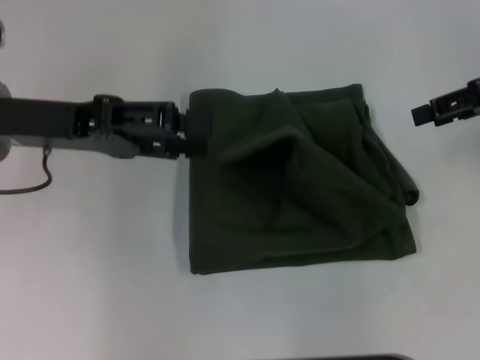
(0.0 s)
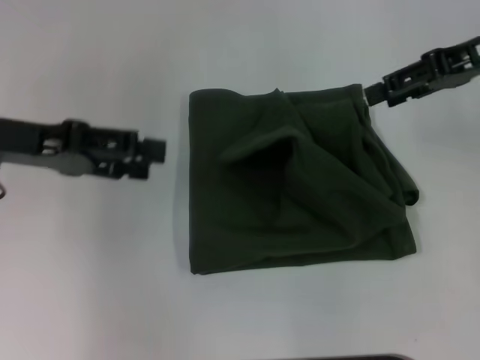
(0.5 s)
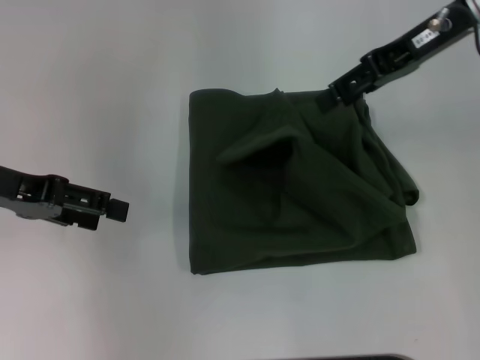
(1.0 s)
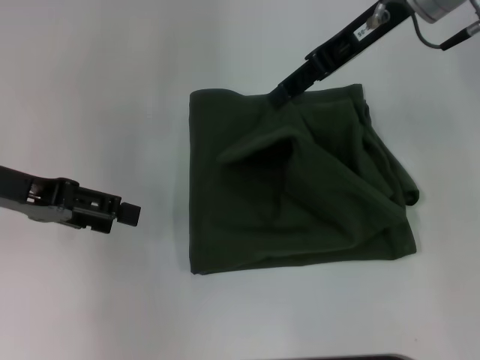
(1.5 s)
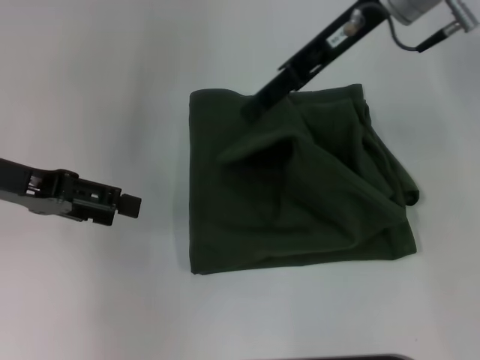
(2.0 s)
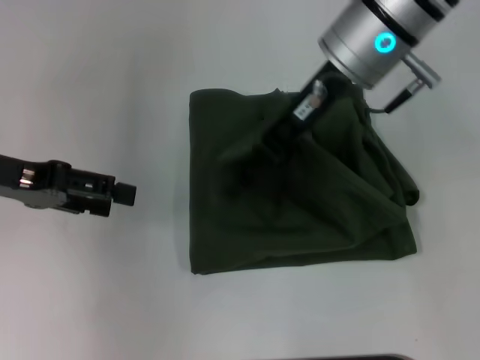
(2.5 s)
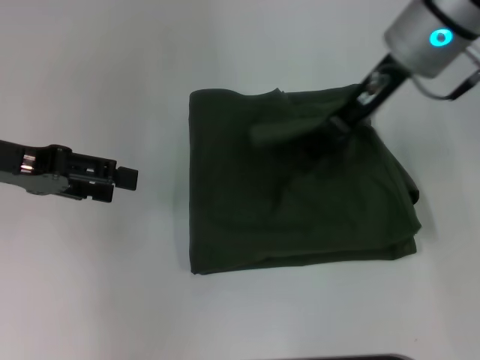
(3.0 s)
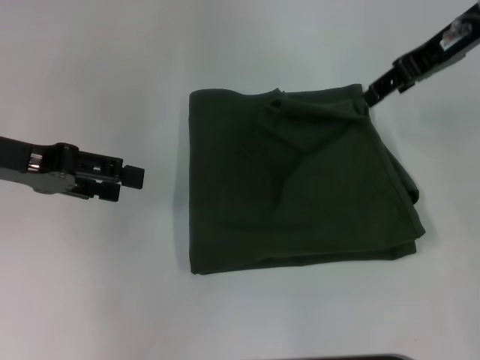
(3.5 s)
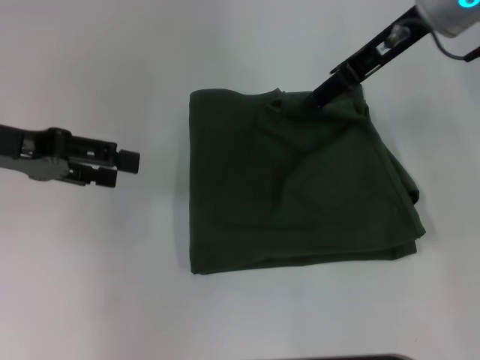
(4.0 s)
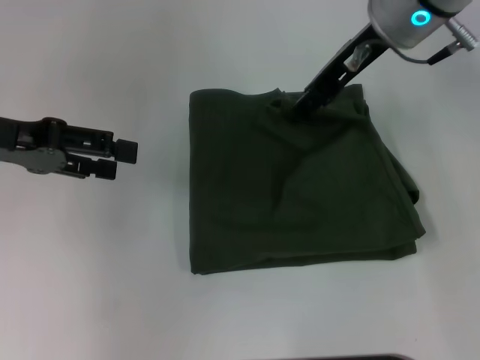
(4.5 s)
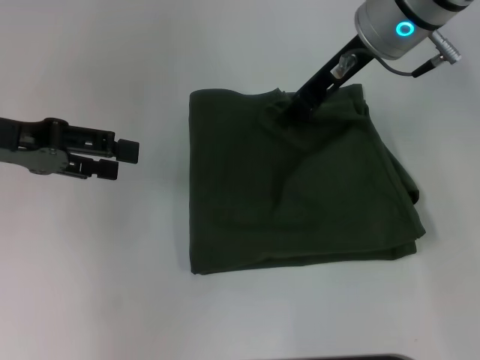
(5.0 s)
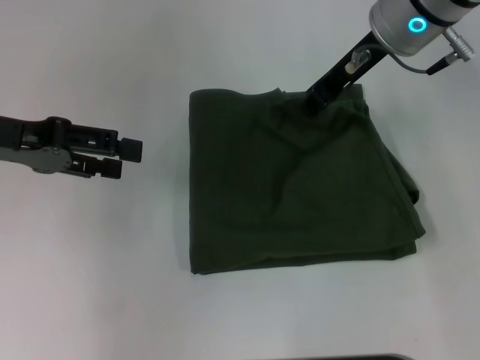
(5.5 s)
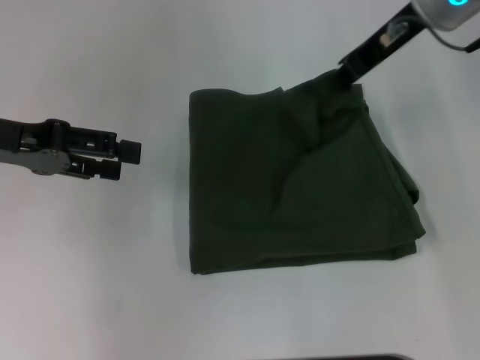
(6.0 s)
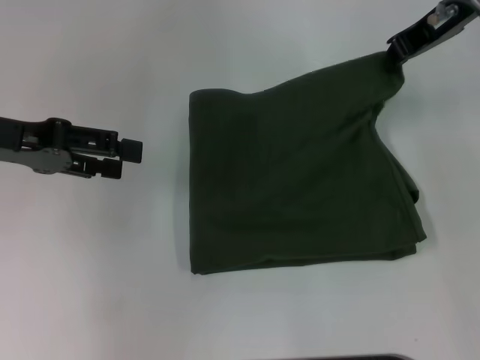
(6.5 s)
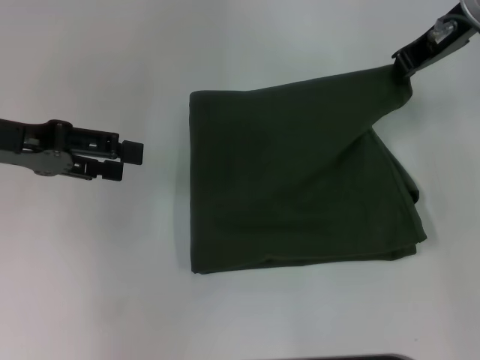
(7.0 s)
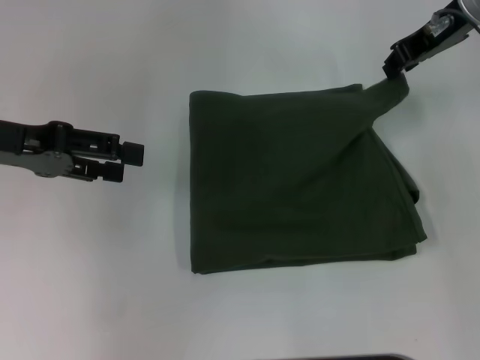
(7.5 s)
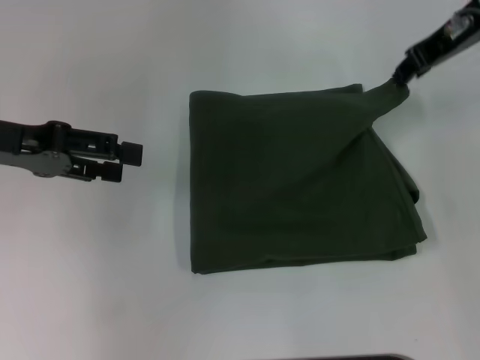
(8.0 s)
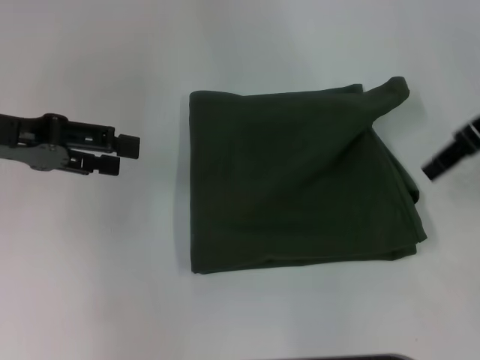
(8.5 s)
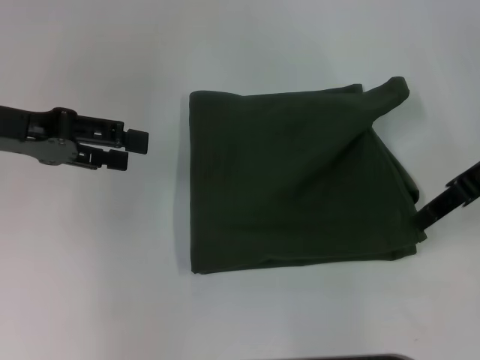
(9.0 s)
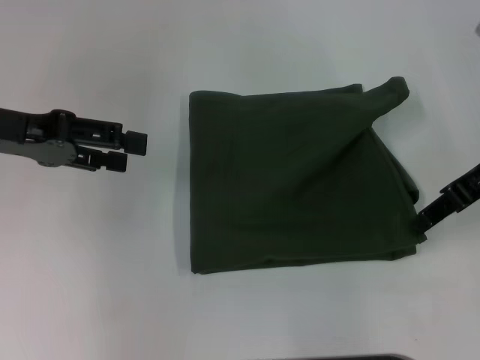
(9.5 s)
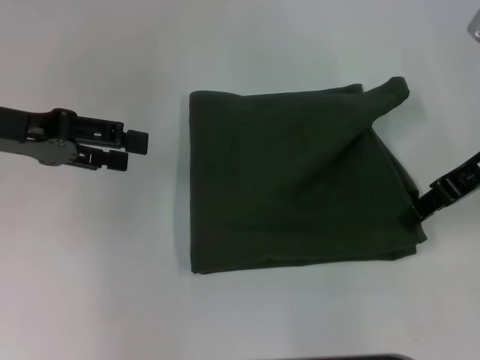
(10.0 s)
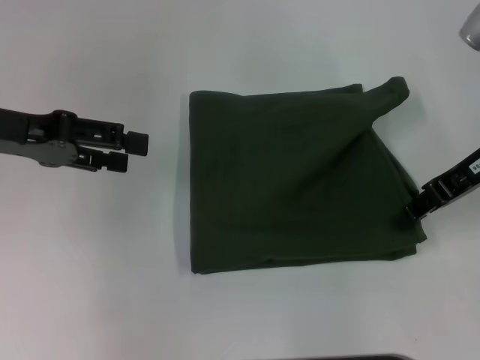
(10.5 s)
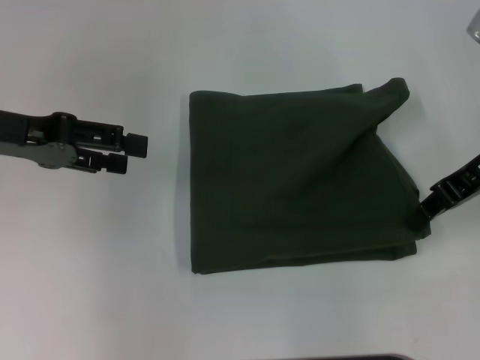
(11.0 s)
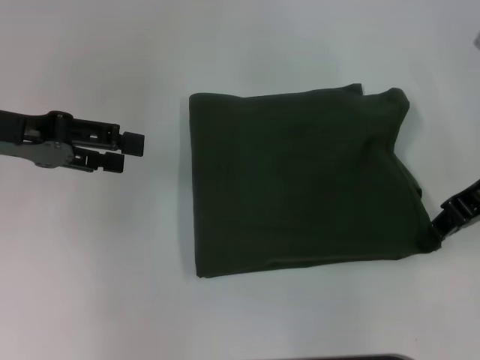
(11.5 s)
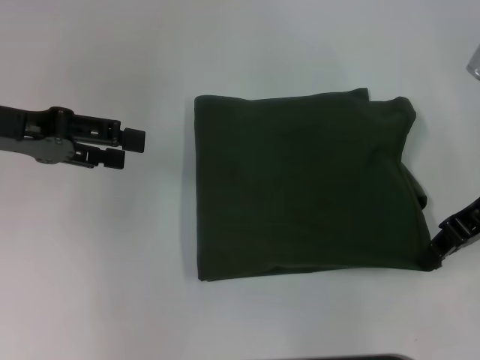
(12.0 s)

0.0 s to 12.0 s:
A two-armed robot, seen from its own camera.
0.0 to 2.0 s: The right gripper goes some 20 cm to the left.
2.0 to 4.0 s: The right gripper travels to the right and back again, some 10 cm each way.
4.0 to 6.0 s: The right gripper closes.
6.0 to 8.0 s: The right gripper goes approximately 5 cm to the right.
8.0 to 10.0 s: The right gripper goes approximately 10 cm backward and downward.
10.0 to 12.0 s: The right gripper closes up.

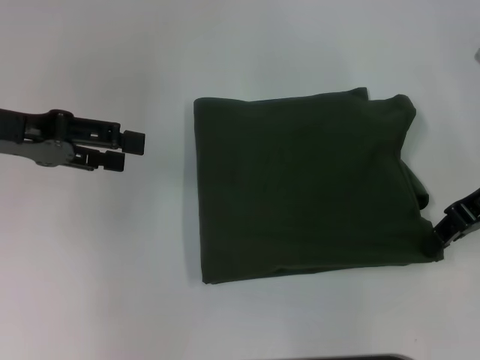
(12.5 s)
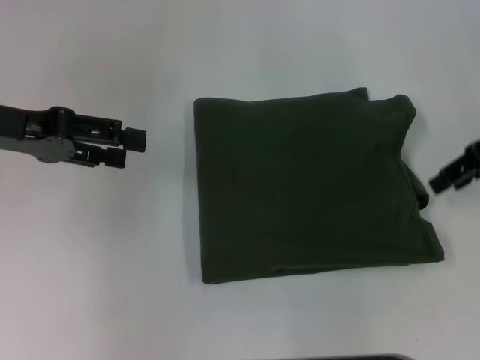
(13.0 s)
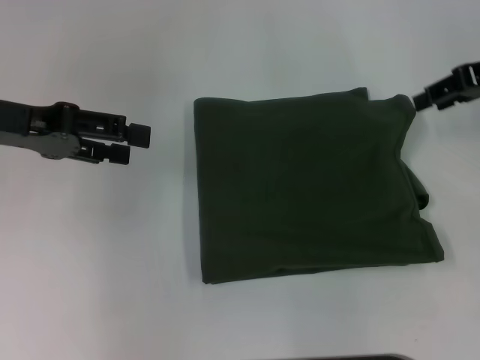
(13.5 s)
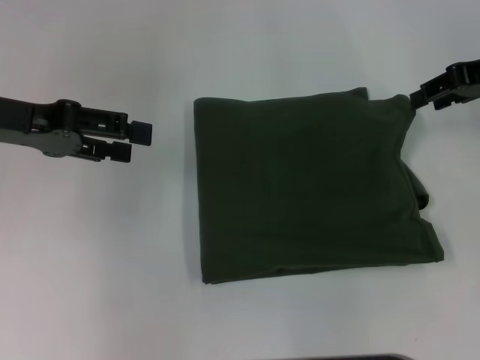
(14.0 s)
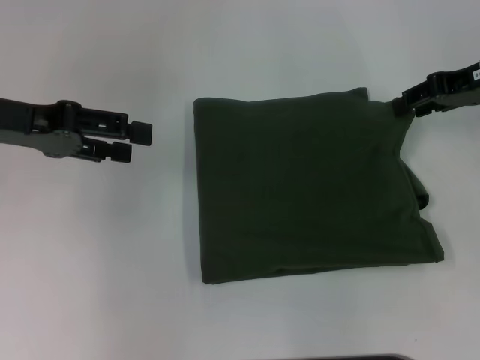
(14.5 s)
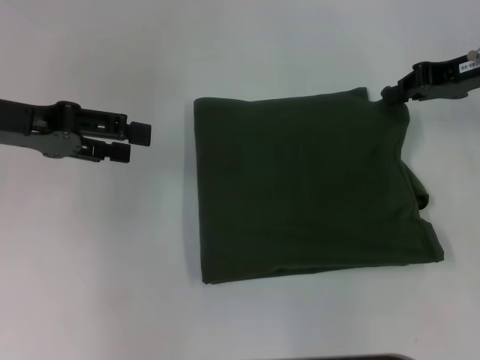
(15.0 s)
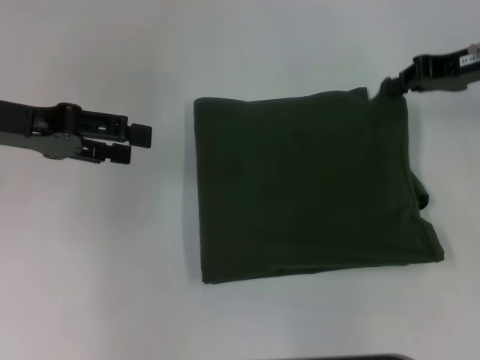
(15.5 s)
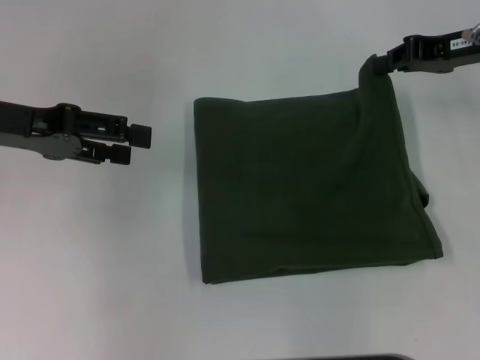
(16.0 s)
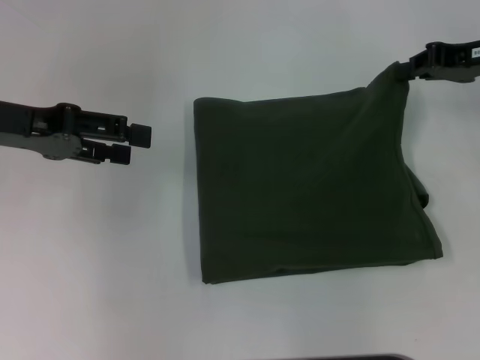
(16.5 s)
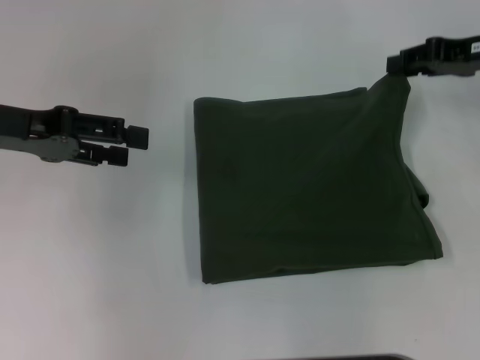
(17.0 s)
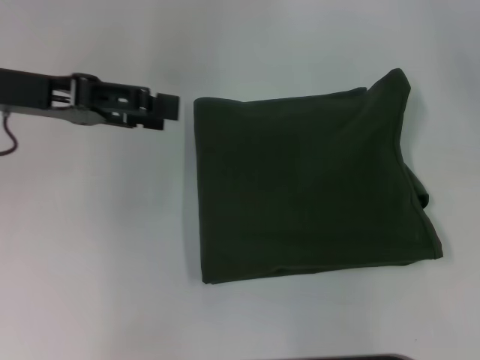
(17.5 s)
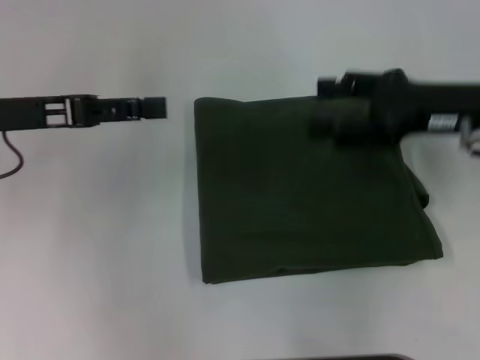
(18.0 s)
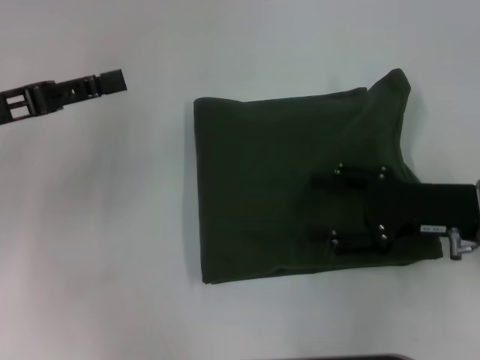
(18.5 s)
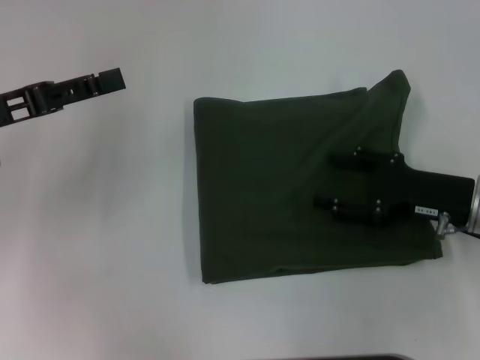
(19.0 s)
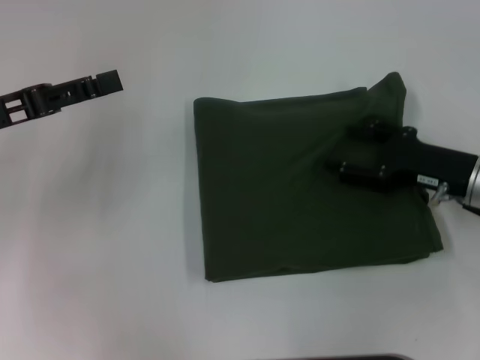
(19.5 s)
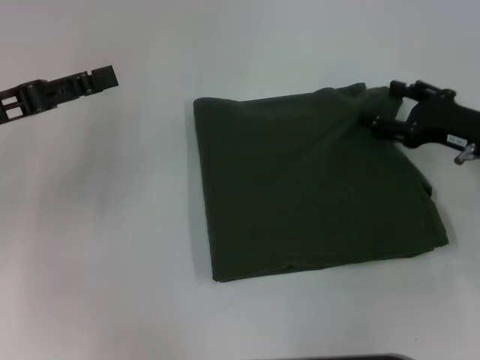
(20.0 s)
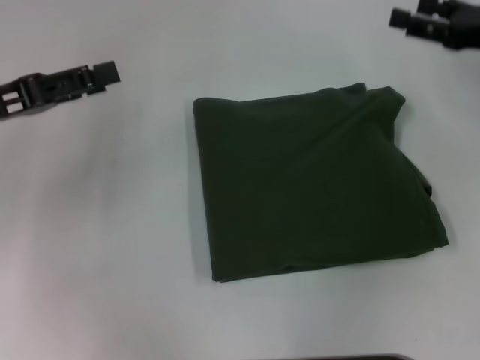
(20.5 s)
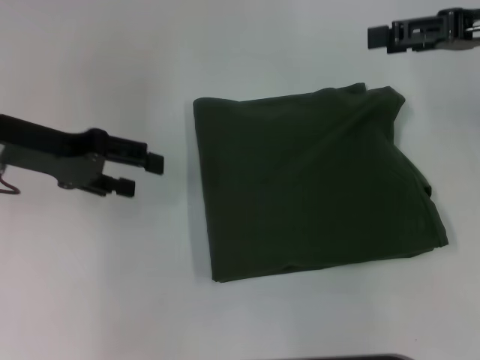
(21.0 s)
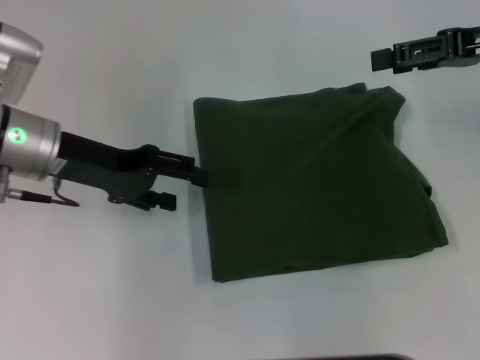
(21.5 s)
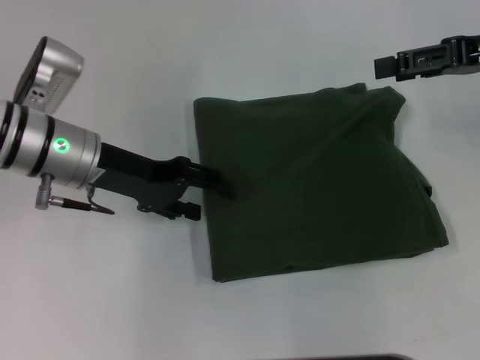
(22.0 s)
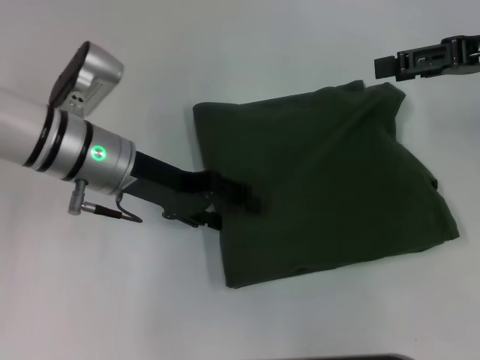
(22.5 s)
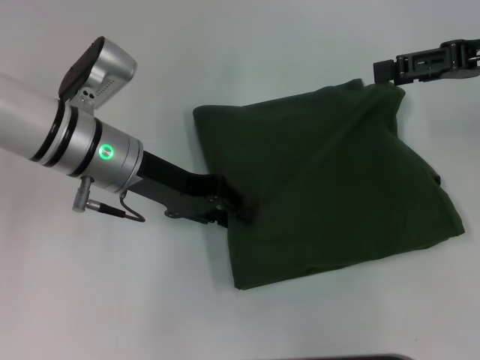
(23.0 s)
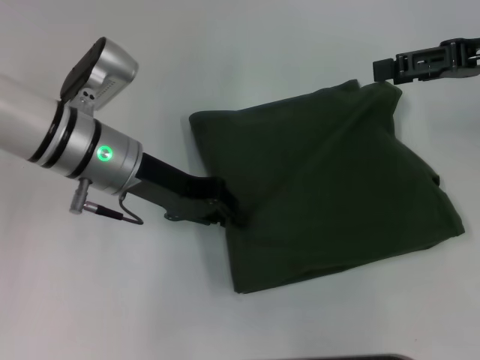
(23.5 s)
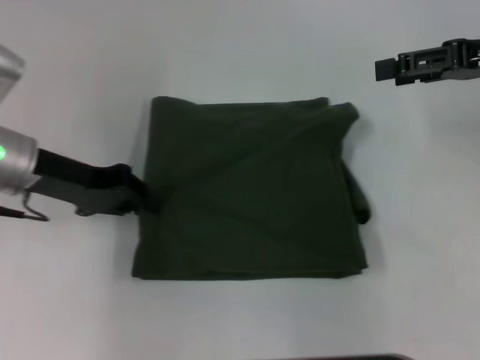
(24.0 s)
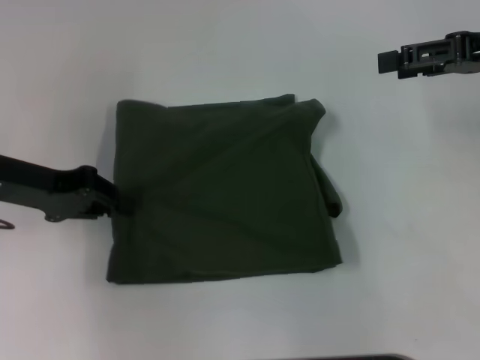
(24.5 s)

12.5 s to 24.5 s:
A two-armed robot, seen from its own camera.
12.5 to 14.5 s: The right gripper is displaced forward by roughly 5 cm, and opens.
14.5 to 16.5 s: The right gripper closes its fingers.
16.5 to 18.5 s: The right gripper heads backward, downward and to the left, covering approximately 15 cm, and opens.
18.5 to 20.5 s: The right gripper goes roughly 15 cm forward, upward and to the right.
20.5 to 22.5 s: The right gripper ends up roughly 5 cm from where it was. The left gripper travels to the right by approximately 15 cm.
22.5 to 24.5 s: The left gripper is displaced to the left by some 10 cm, and closes its fingers.

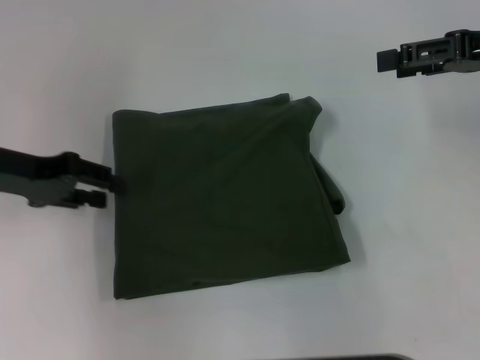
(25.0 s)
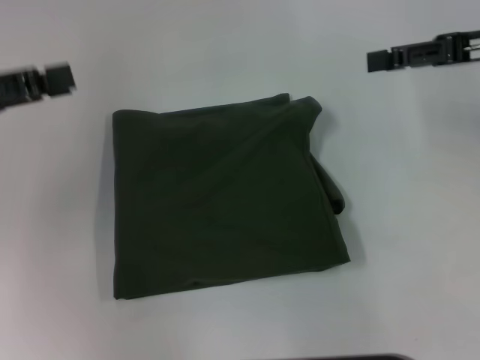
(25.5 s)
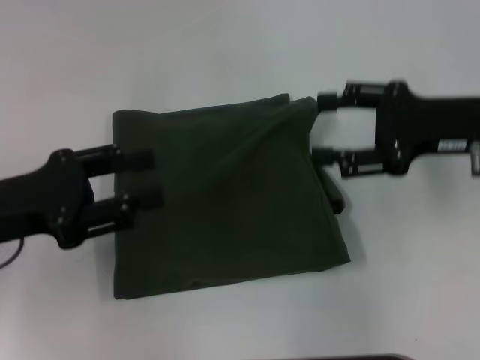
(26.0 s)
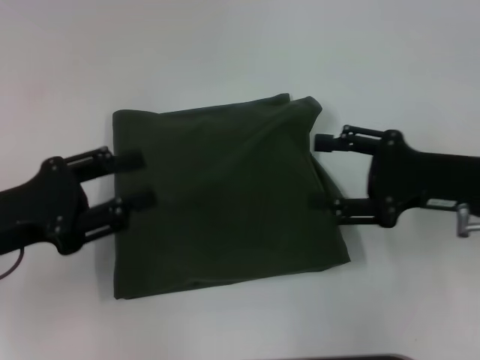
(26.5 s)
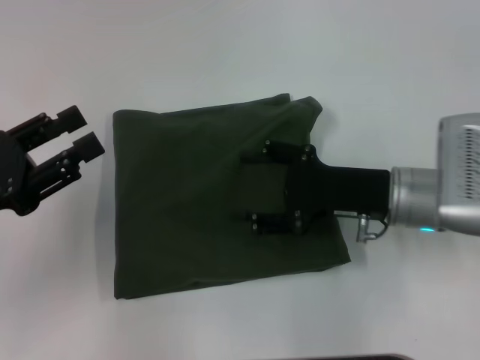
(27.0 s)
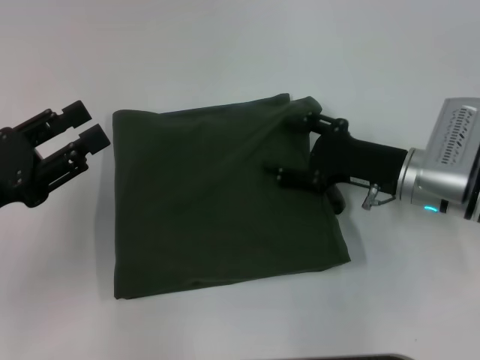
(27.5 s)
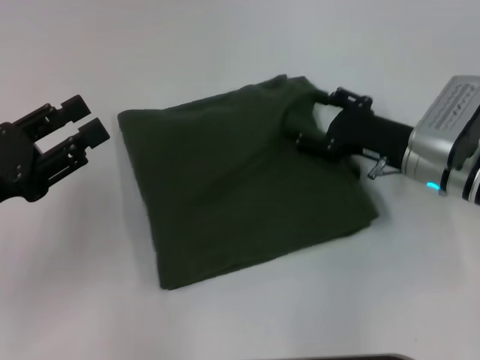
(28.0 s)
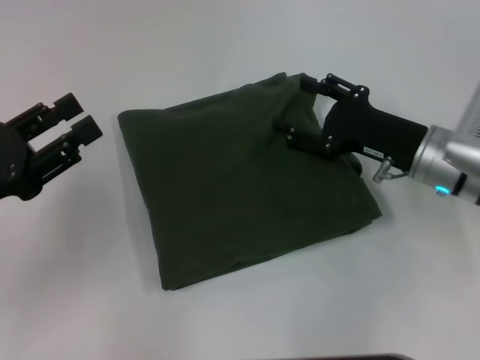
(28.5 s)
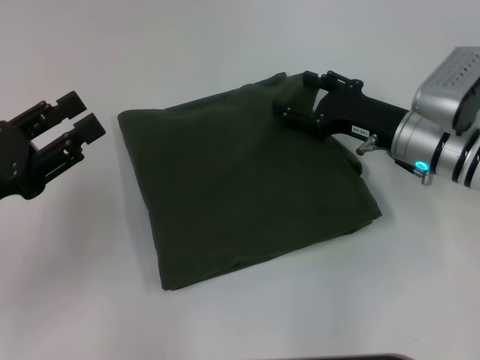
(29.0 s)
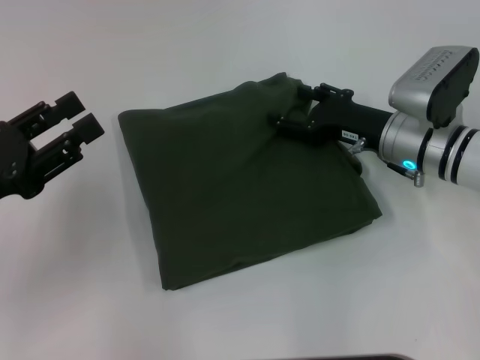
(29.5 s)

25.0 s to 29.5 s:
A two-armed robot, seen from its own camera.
25.0 to 27.0 s: The left gripper goes roughly 10 cm backward; the right gripper heads downward, to the left and backward, covering about 20 cm.
27.0 to 29.5 s: The right gripper heads forward, covering roughly 5 cm.
